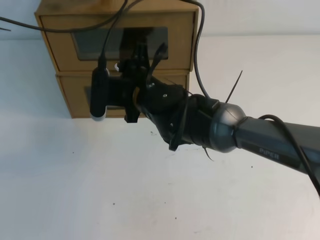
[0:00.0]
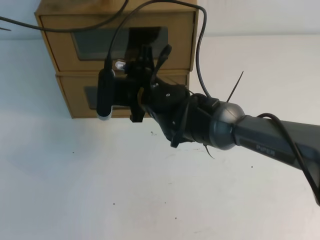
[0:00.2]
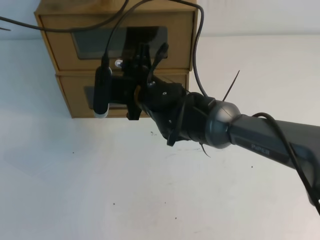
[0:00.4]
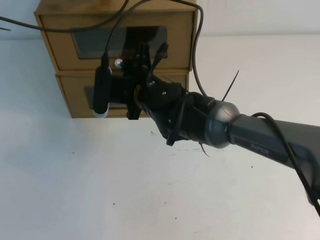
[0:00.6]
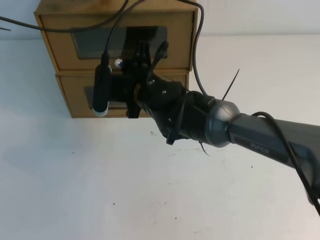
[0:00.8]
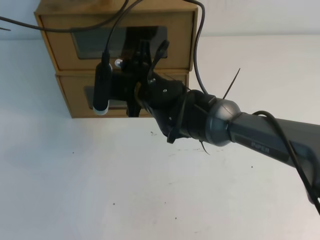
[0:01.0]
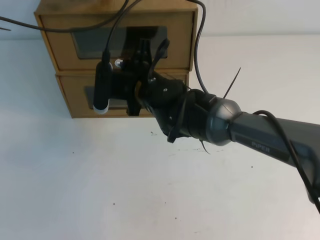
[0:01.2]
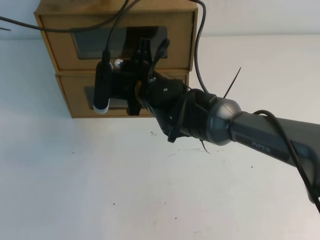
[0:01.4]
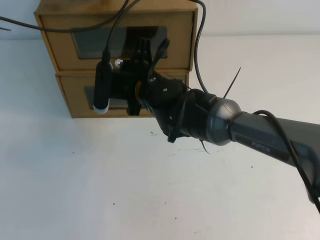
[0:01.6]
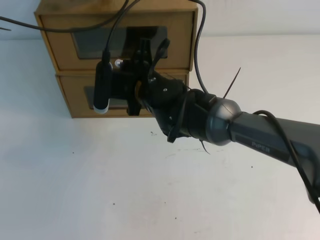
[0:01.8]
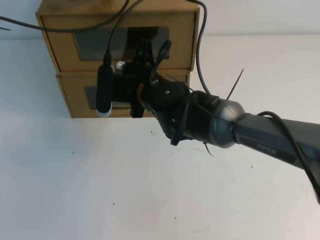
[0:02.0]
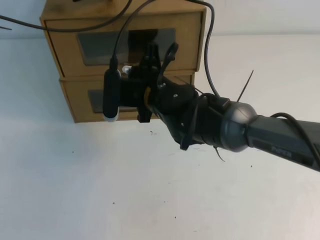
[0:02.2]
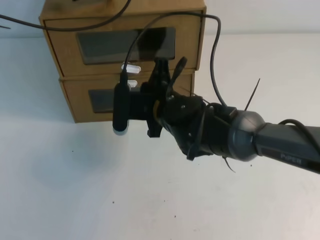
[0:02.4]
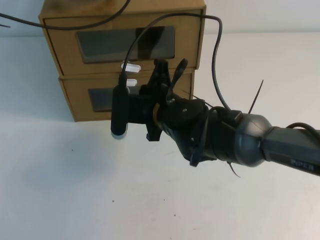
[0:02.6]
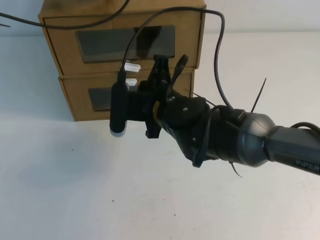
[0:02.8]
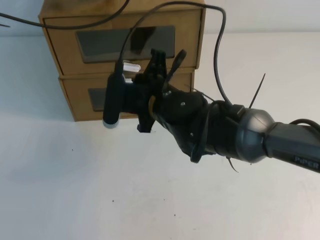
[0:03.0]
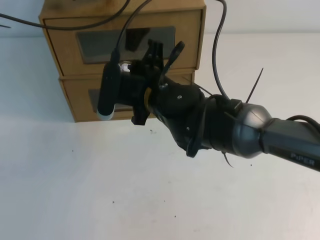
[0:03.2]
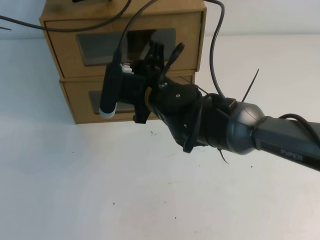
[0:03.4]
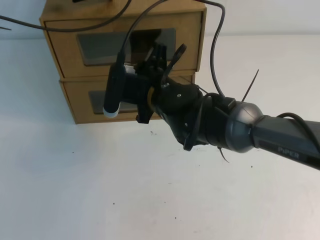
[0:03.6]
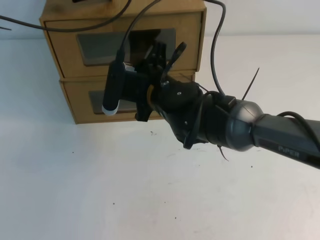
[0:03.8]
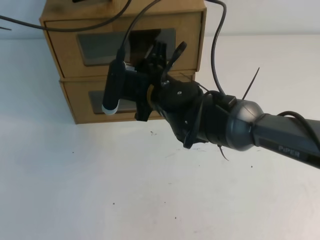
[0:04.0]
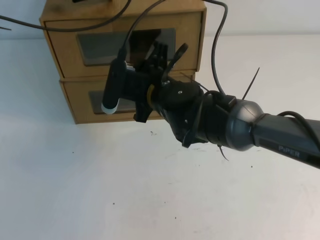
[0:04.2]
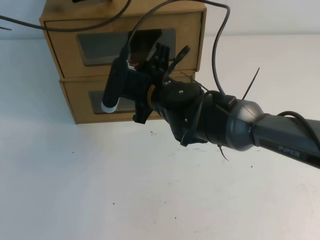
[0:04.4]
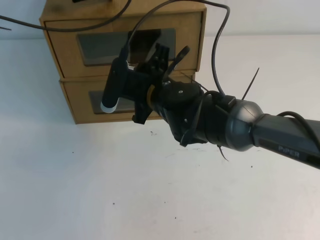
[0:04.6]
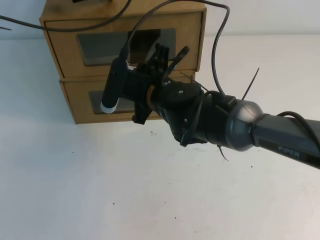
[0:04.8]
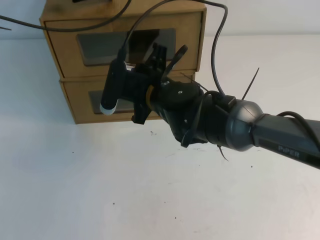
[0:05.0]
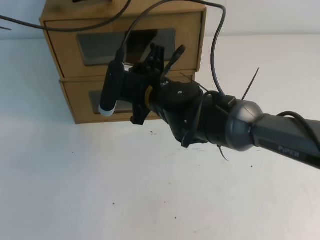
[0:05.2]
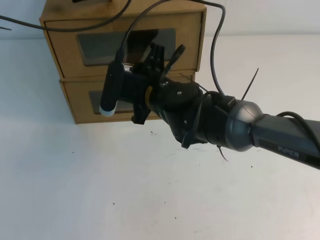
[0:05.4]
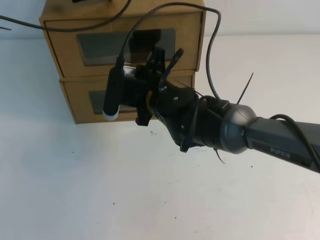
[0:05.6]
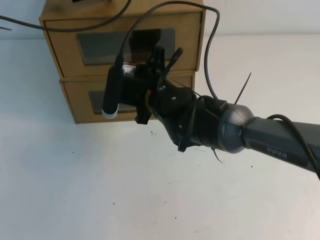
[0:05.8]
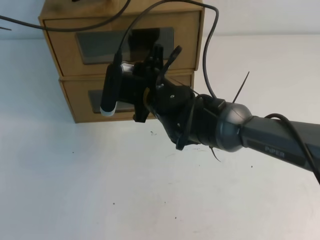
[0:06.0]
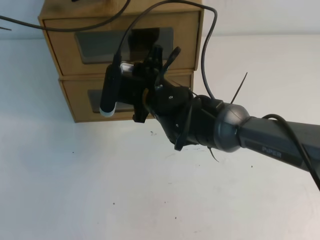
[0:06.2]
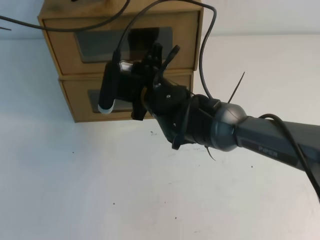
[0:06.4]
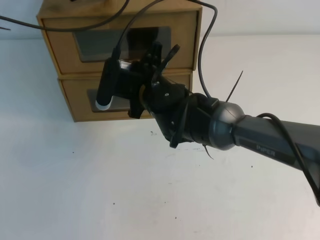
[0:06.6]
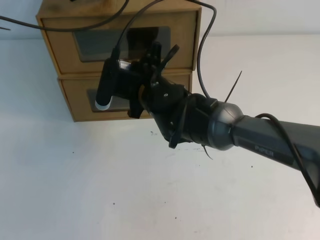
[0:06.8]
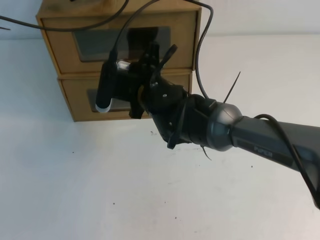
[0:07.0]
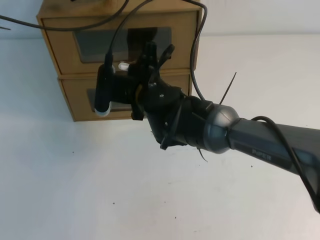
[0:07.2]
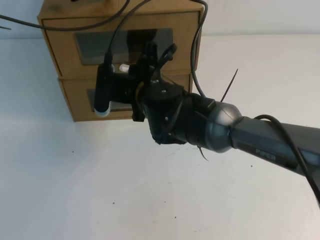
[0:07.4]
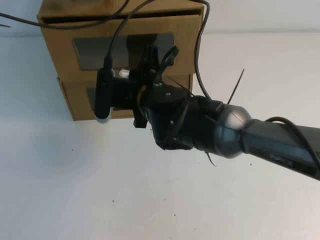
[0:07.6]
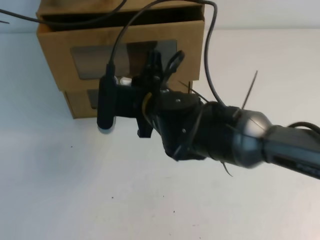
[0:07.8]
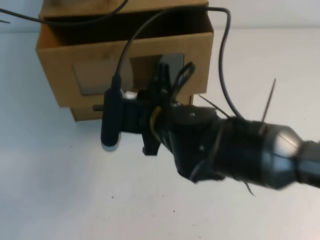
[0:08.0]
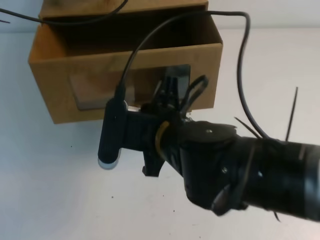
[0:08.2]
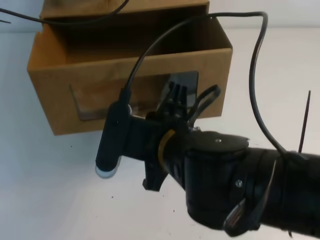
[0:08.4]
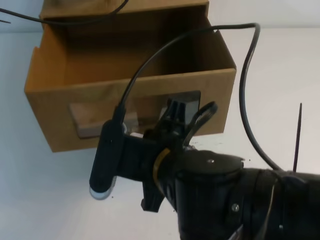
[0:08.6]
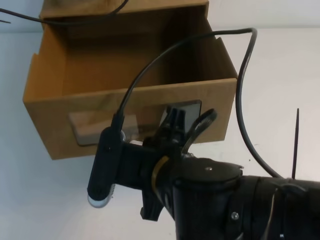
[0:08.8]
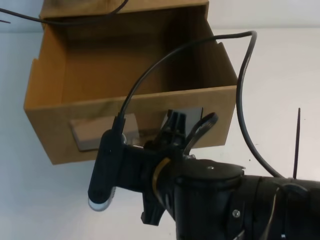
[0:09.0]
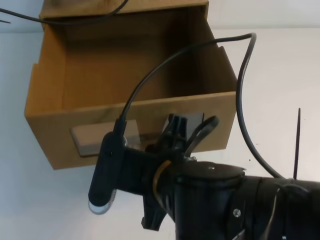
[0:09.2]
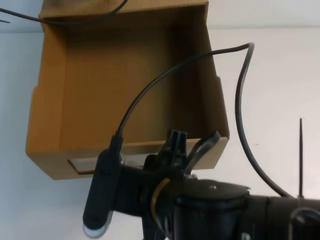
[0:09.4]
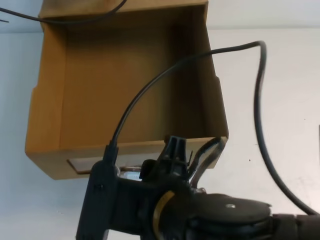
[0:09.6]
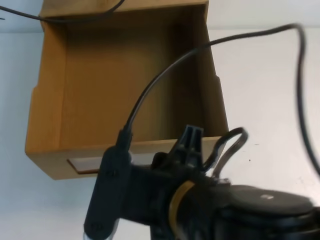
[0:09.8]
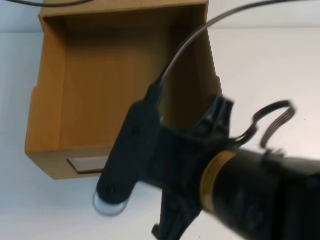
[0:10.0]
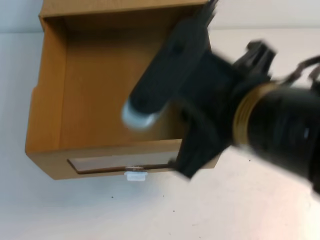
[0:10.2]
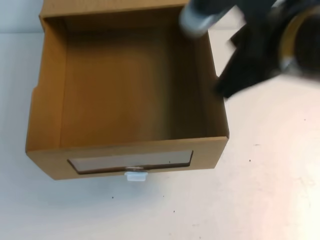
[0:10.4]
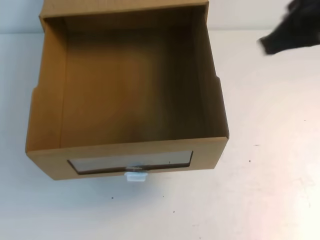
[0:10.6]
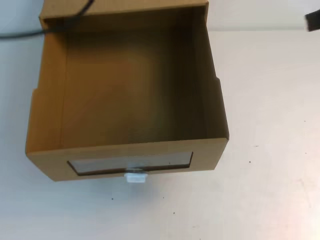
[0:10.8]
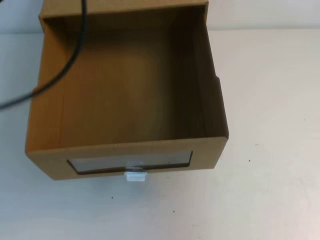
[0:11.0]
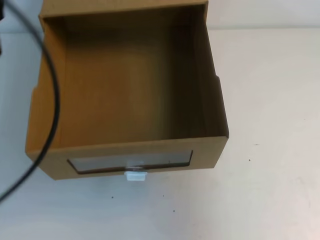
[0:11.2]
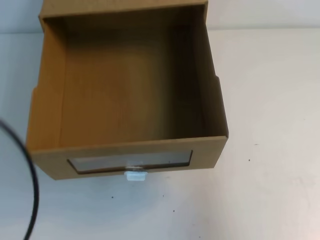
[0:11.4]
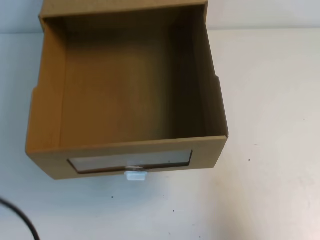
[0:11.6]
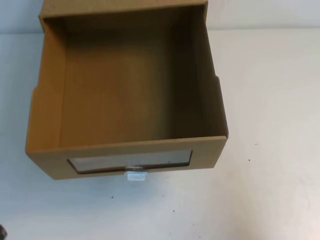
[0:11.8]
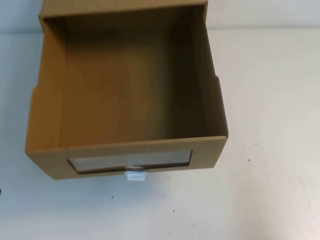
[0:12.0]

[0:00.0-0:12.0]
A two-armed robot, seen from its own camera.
Task of the whole recording: open the shoebox on the table.
0:00.0 to 0:01.6: The right gripper closes.
0:01.6 to 0:03.0: The right gripper travels backward by some 5 cm.
0:03.0 to 0:04.4: The right gripper opens its fingers.
0:04.4 to 0:06.0: Neither gripper changes place.
0:06.0 to 0:07.6: The right gripper closes.
0:07.6 to 0:09.0: The right gripper goes some 20 cm backward.
0:09.0 to 0:10.4: The right gripper is displaced upward and to the right by some 15 cm, and opens and closes again; the left gripper goes roughly 15 cm upward and backward.
0:10.4 to 0:12.0: The left gripper moves backward and downward, approximately 40 cm, while the right gripper shifts roughly 25 cm to the right and downward.

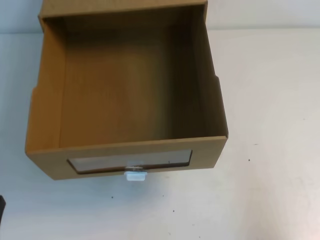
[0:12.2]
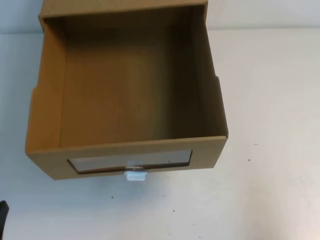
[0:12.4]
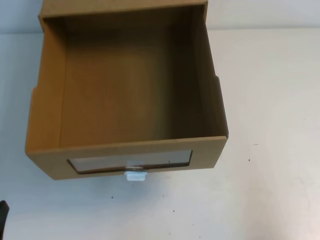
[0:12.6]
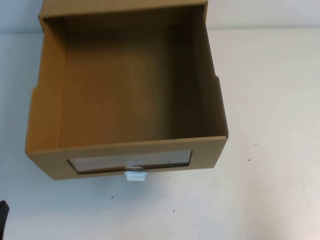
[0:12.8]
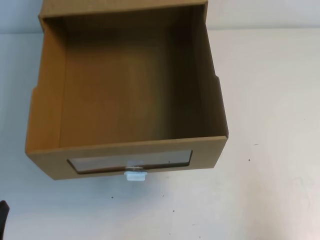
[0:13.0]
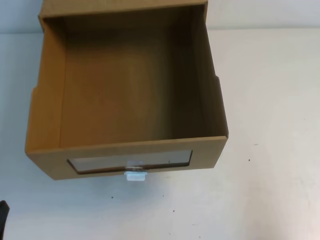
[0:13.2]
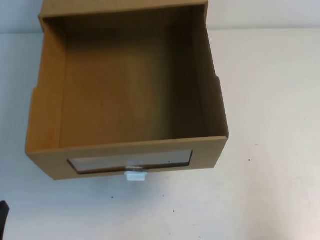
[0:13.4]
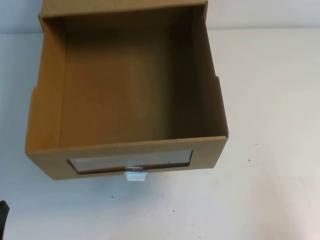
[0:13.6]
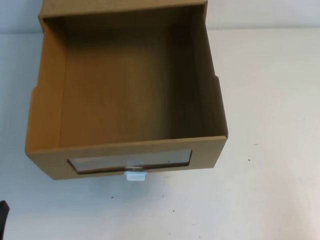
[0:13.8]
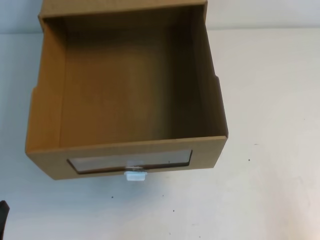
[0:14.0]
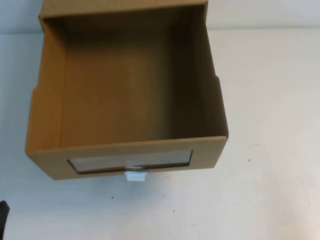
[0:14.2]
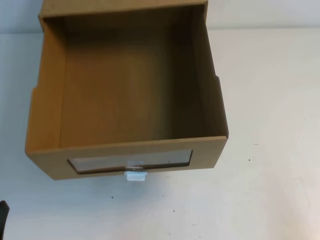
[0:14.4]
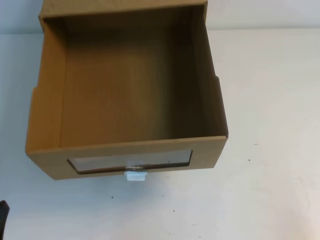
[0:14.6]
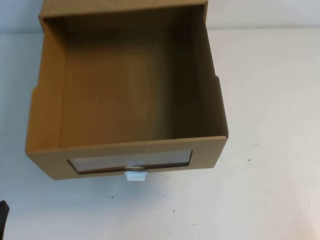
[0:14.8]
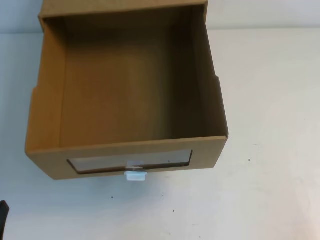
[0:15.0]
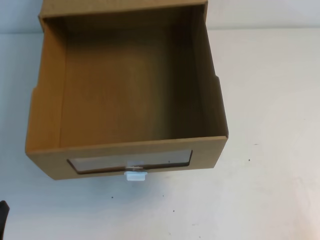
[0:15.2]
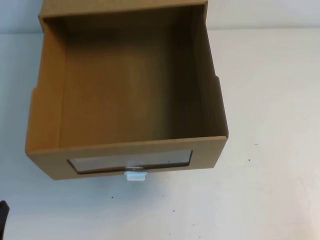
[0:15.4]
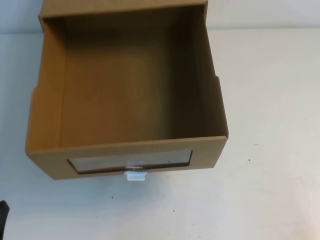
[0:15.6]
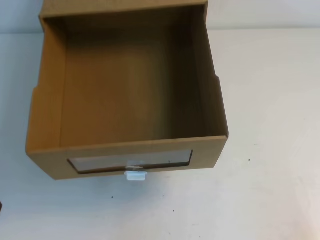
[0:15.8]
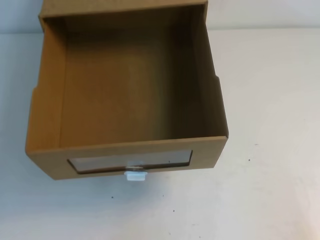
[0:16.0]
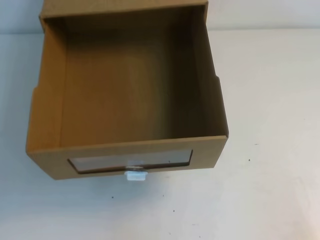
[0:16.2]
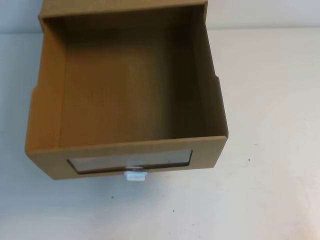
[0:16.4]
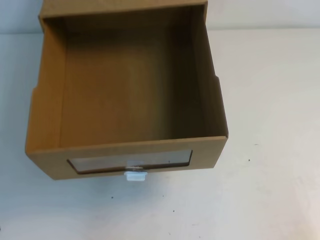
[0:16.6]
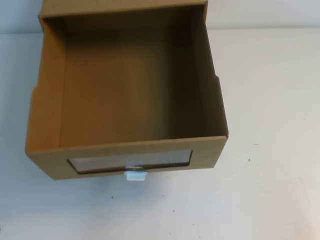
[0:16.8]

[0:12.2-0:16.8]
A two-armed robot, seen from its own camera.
Task of the whole recording: open the shoebox on the table.
0:12.2 to 0:13.8: The right gripper ends up approximately 5 cm from where it was.
